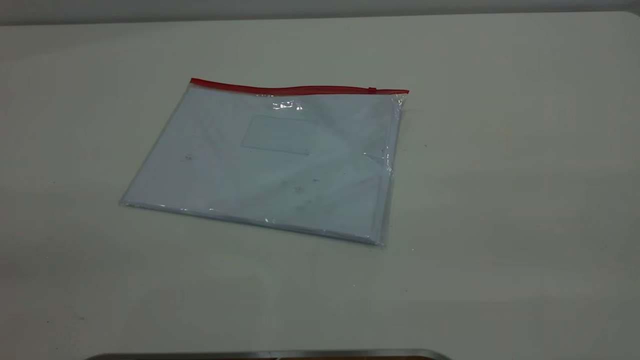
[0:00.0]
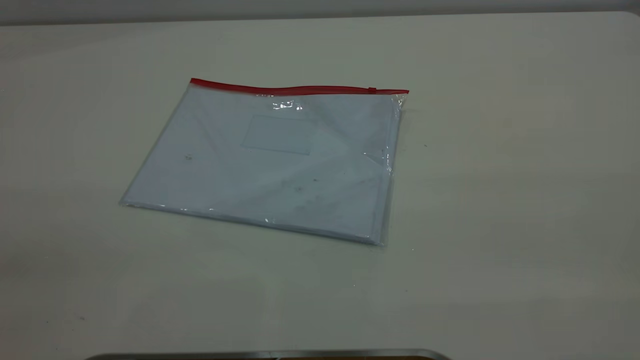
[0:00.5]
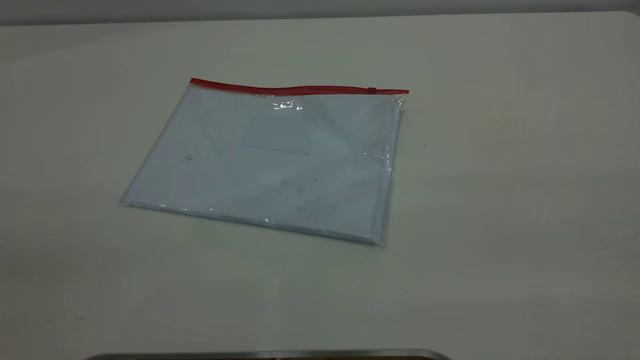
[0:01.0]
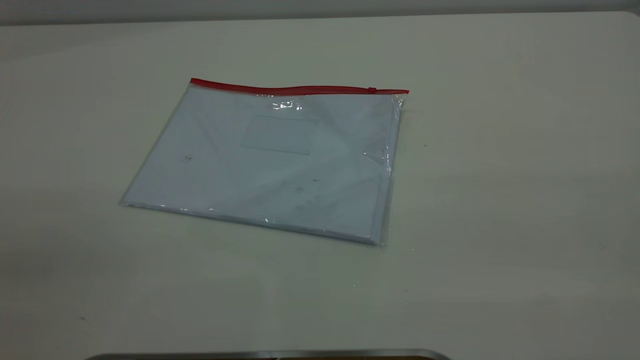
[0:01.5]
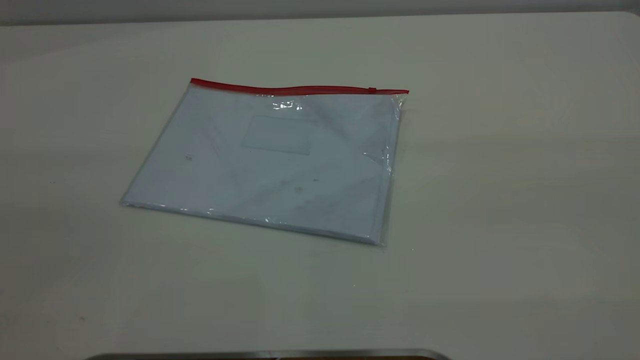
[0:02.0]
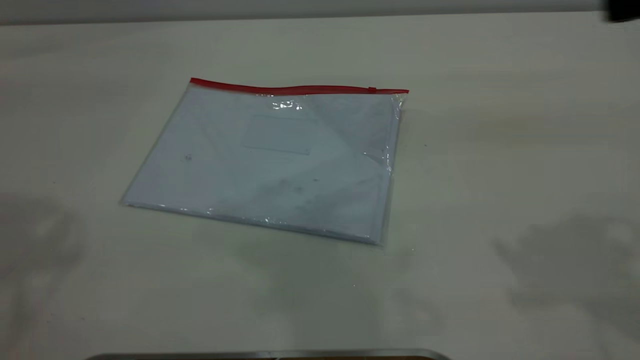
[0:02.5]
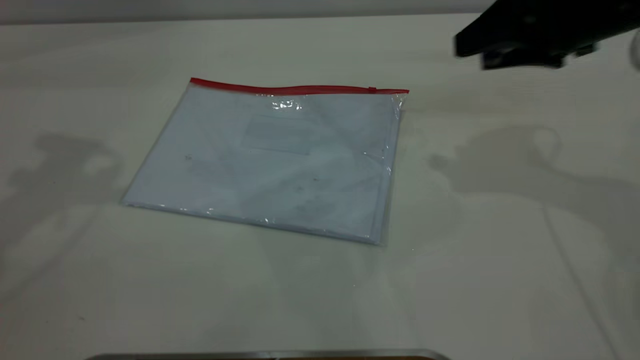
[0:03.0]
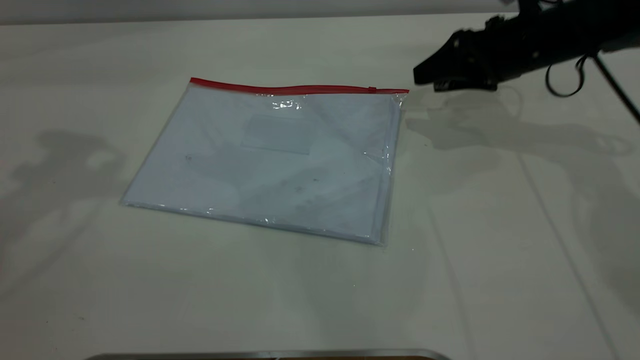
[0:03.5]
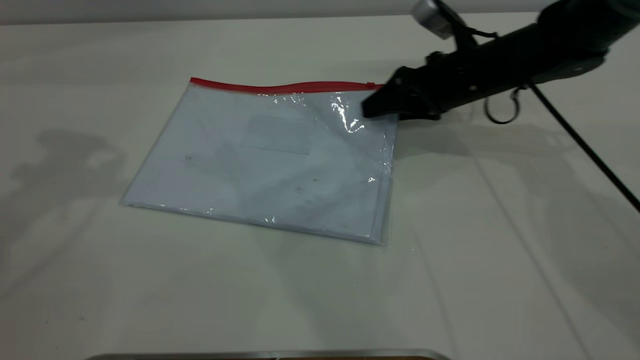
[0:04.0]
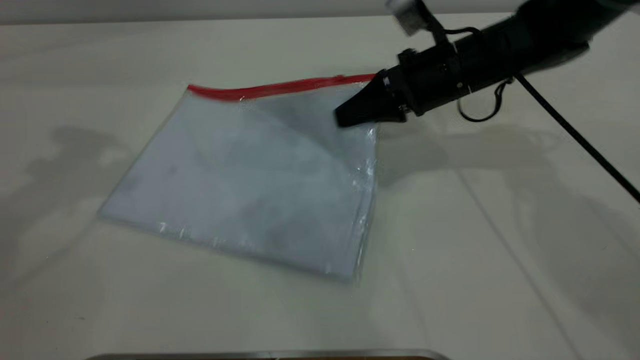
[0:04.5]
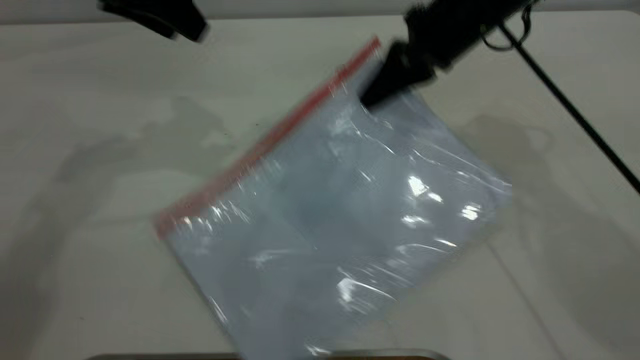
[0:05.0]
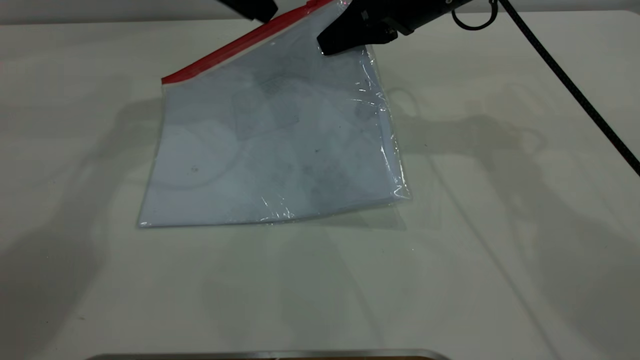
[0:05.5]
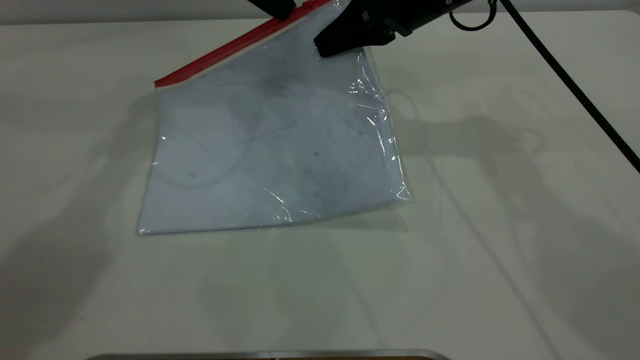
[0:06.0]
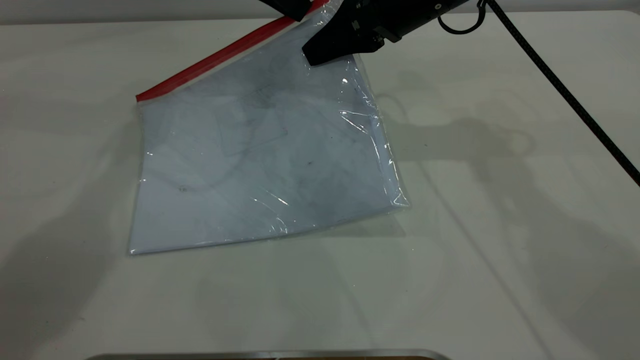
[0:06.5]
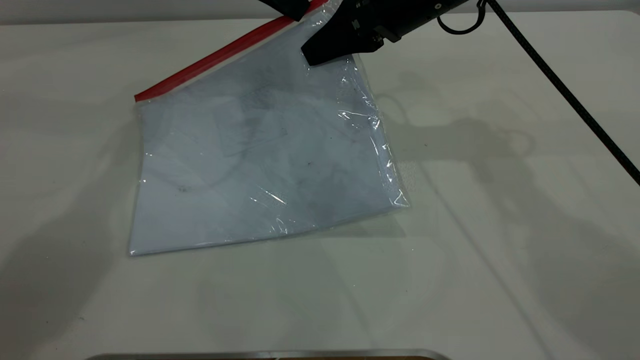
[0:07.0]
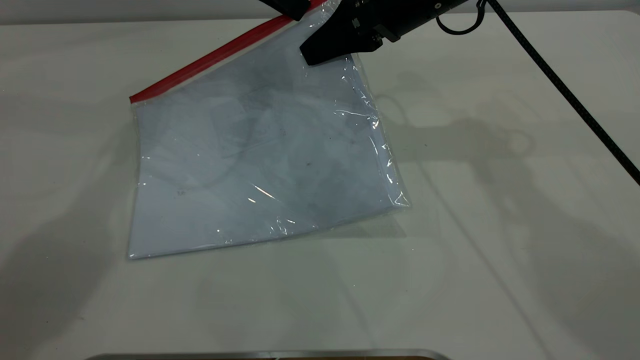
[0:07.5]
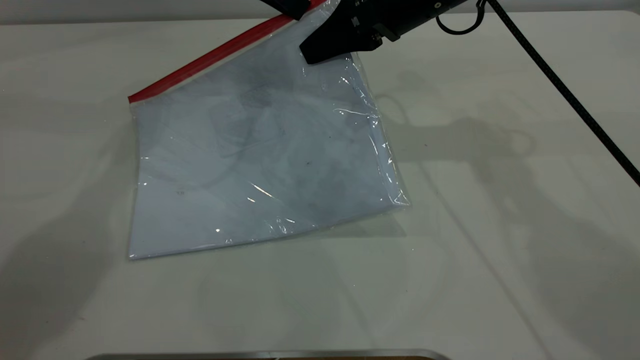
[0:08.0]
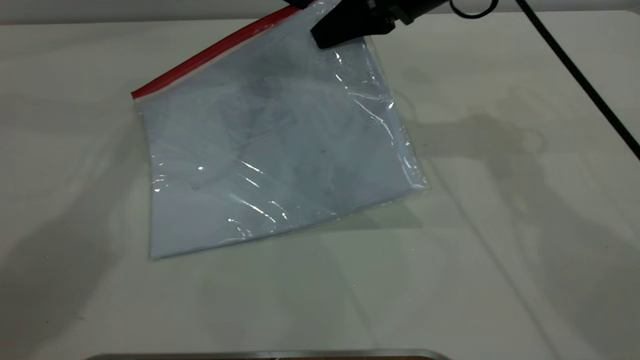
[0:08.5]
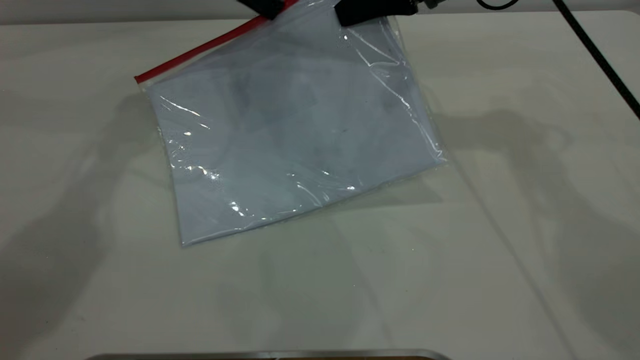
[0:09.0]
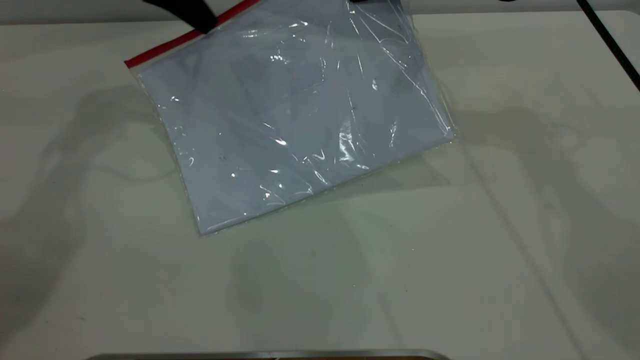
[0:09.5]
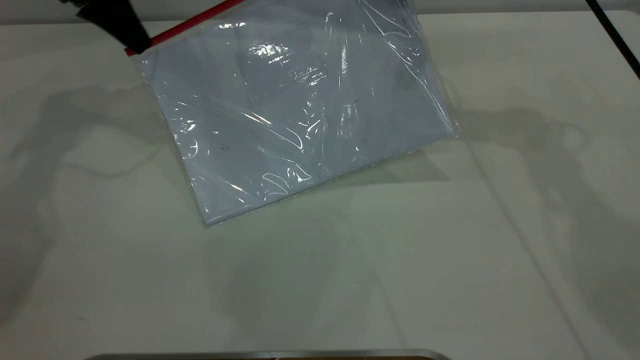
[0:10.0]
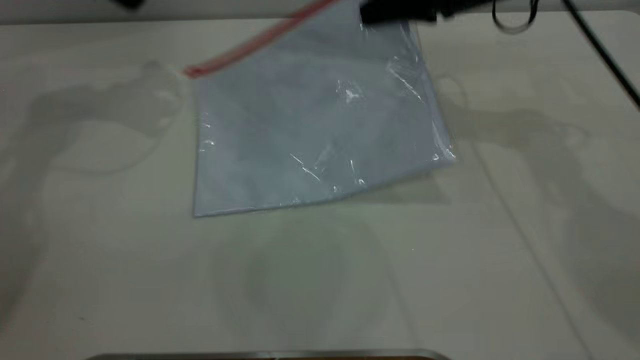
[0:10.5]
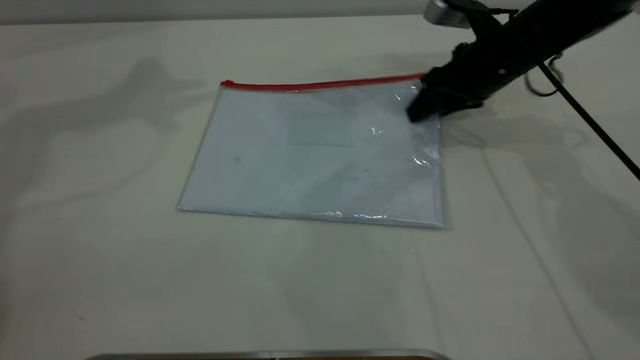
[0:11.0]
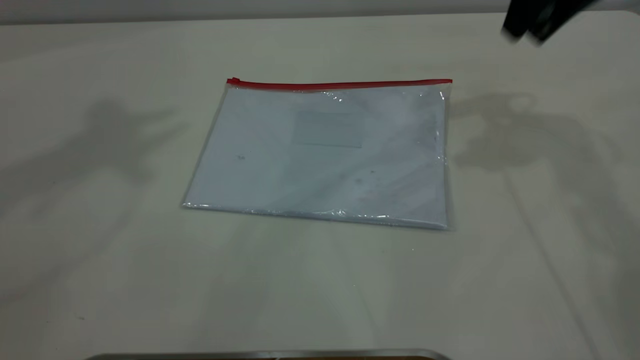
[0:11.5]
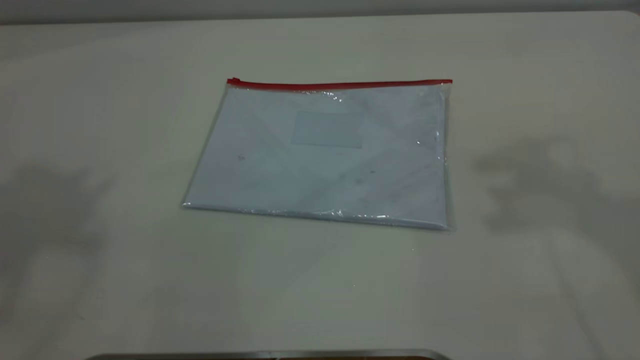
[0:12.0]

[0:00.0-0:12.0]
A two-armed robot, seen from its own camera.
Step, 0:00.0 to 0:05.0: Pick up the transparent plastic bag with the right gripper.
Step, 0:05.5 to 0:10.0: Pulling up the zipper on the transparent plastic bag with the left gripper to close it.
Step, 0:10.5 to 0:11.5: Place the transparent plastic bag.
0:02.0 to 0:04.0: The right gripper heads forward and downward, covering roughly 50 cm, while the left gripper moves forward, some 30 cm.
0:04.0 to 0:06.0: The right gripper shifts approximately 15 cm upward and to the left, and closes, while the left gripper heads to the right, forward and downward, covering about 25 cm.
0:06.0 to 0:08.0: The left gripper closes.
0:08.0 to 0:10.0: The right gripper is displaced to the right by approximately 5 cm. The left gripper shifts approximately 15 cm to the left.
0:10.0 to 0:12.0: Both grippers travel together upward and backward, some 40 cm. The right gripper opens its fingers. The left gripper opens up.

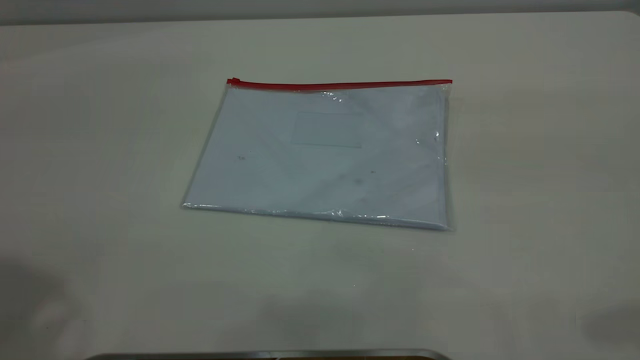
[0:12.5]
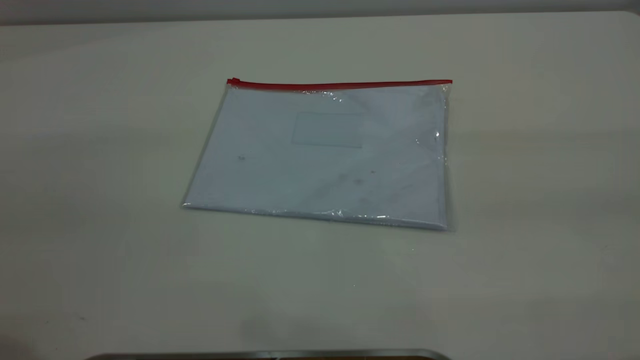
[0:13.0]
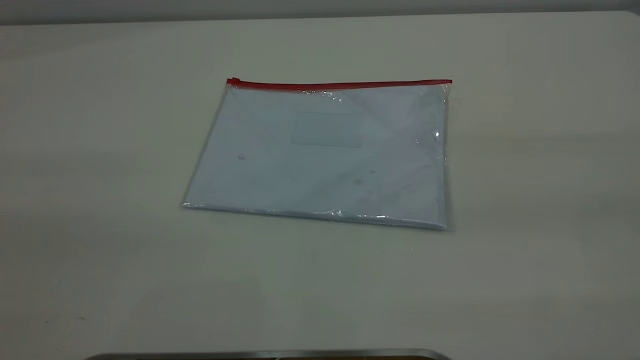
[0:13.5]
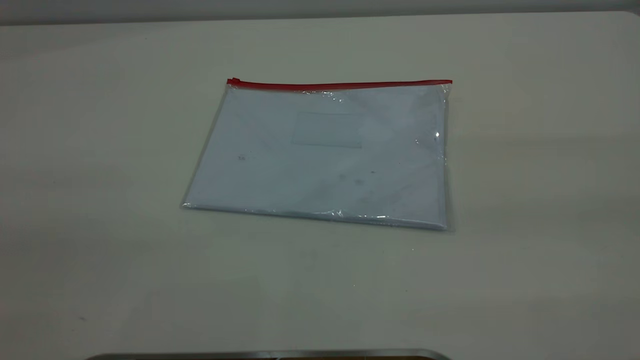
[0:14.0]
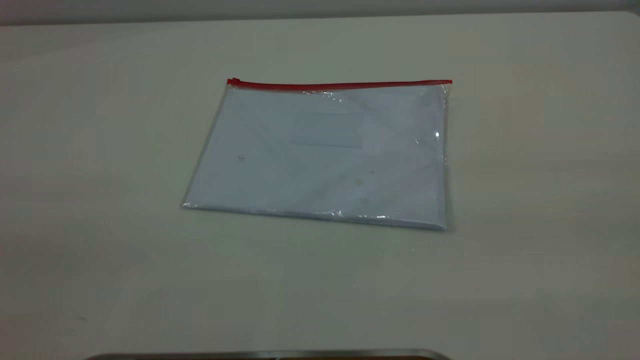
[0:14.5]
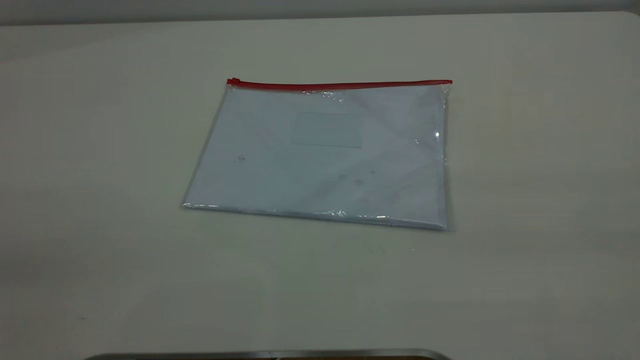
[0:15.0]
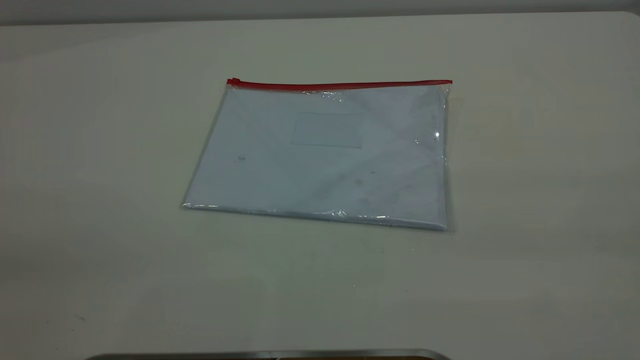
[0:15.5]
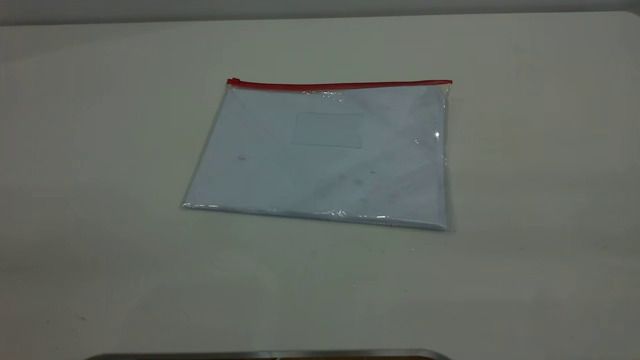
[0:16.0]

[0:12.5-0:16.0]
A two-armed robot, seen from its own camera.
0:14.5 to 0:16.0: Both grippers stay put.

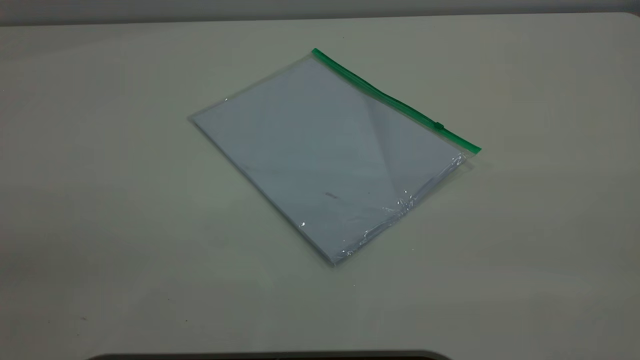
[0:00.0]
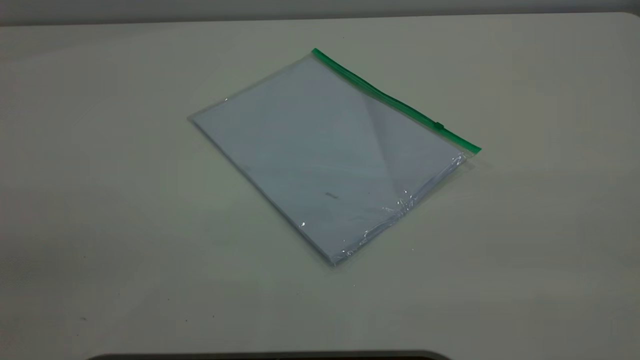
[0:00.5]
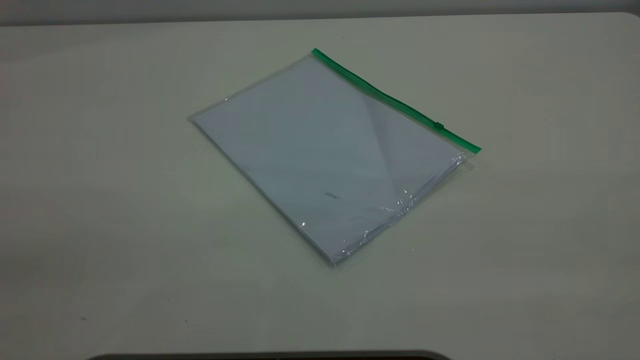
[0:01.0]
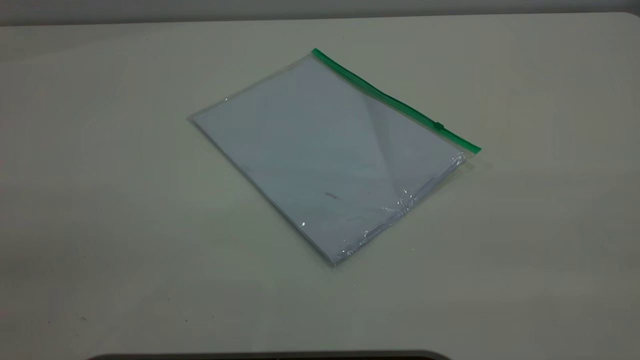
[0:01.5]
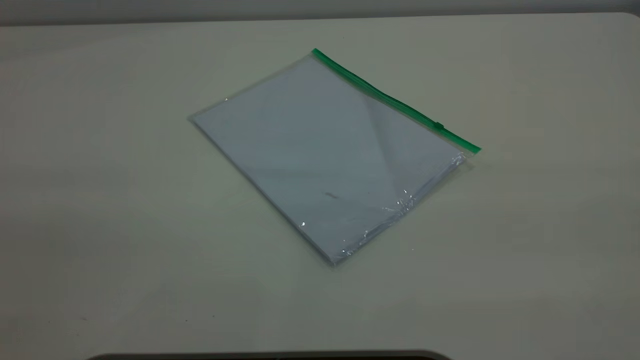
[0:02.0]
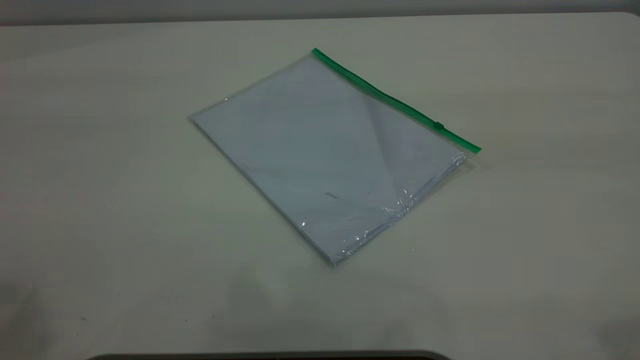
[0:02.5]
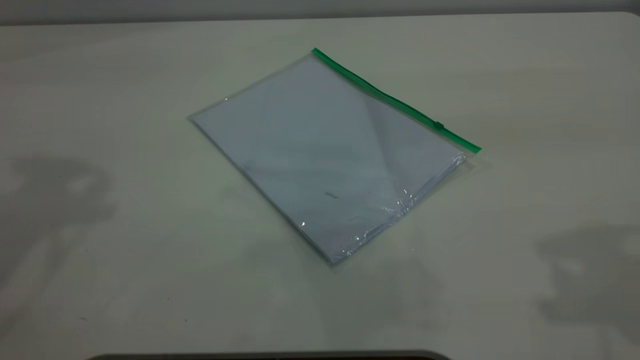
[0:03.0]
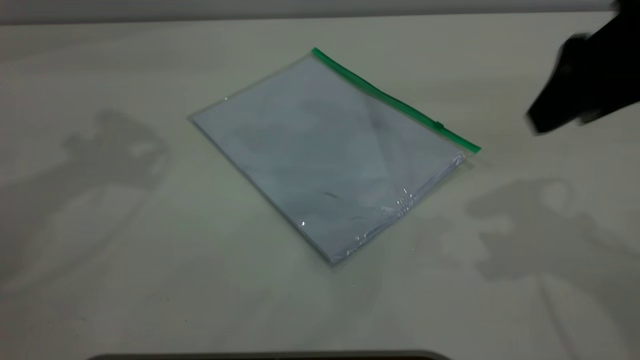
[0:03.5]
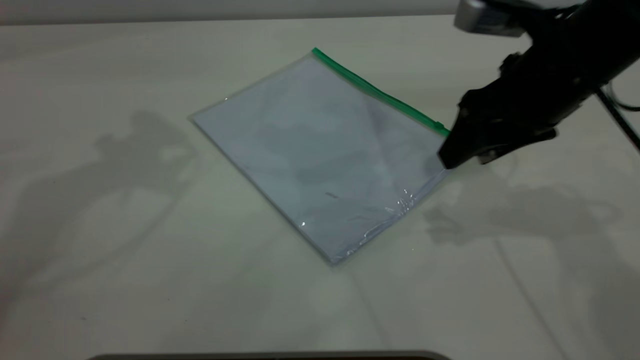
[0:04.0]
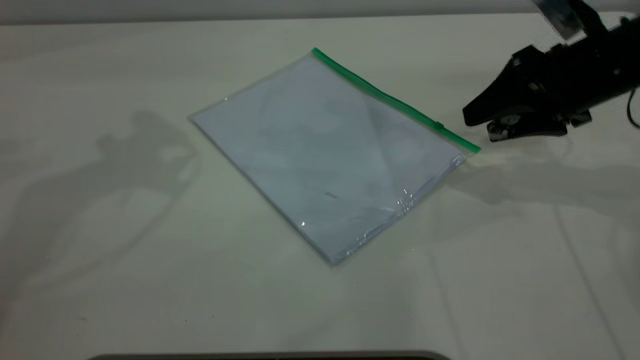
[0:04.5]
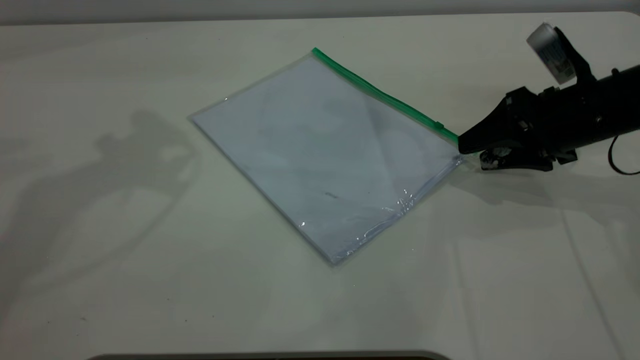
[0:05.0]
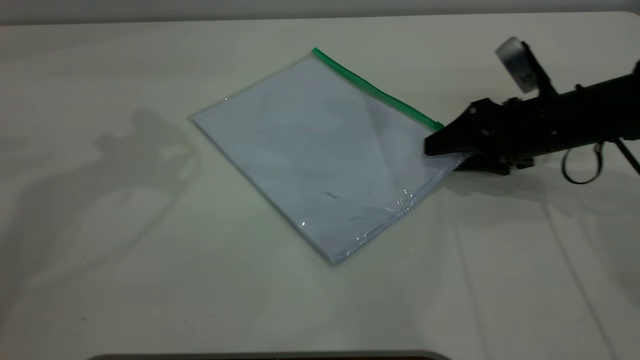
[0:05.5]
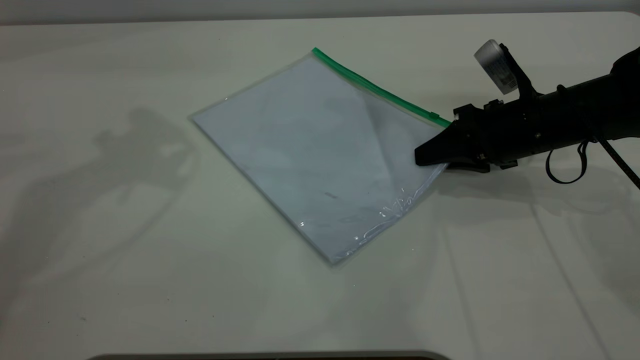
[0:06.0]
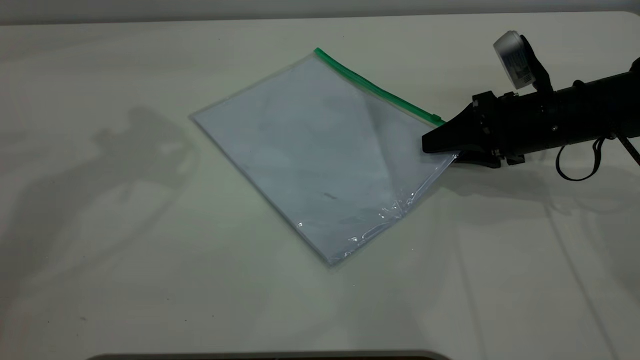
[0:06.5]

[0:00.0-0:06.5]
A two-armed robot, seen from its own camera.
0:02.0 to 0:04.5: The right gripper shifts about 50 cm forward and downward.
0:04.5 to 0:06.5: The right gripper shifts approximately 5 cm downward, and closes.
